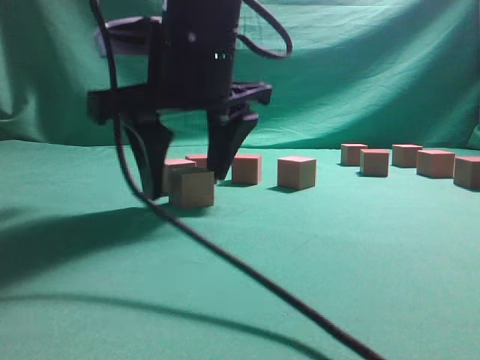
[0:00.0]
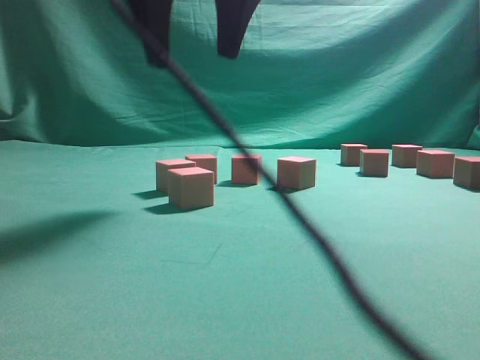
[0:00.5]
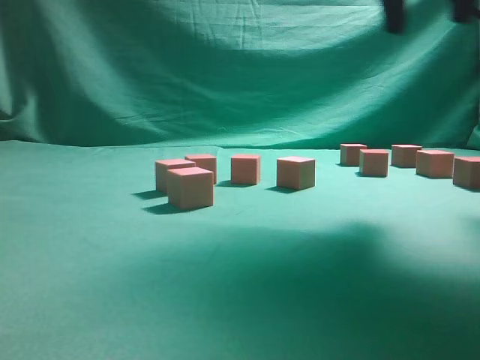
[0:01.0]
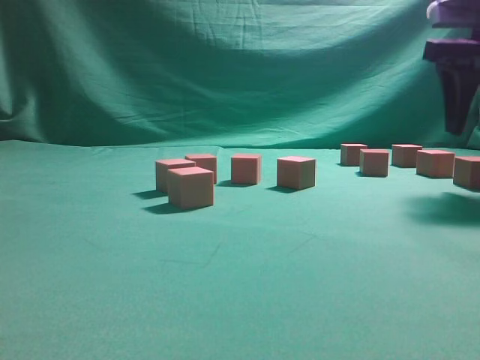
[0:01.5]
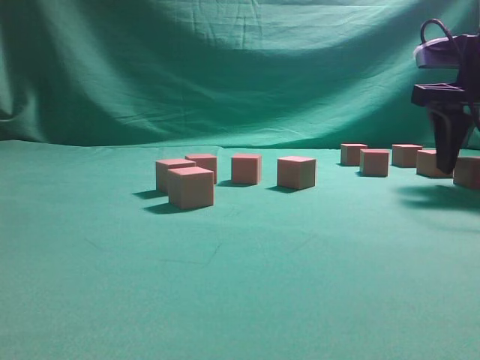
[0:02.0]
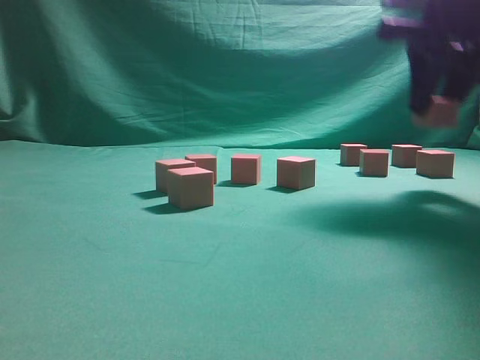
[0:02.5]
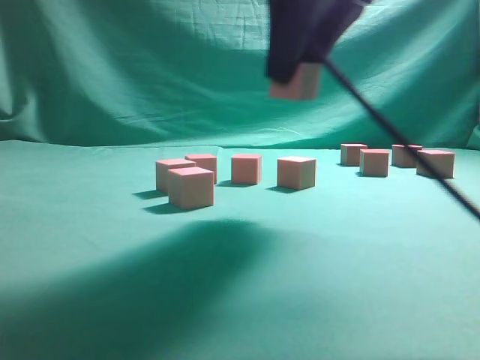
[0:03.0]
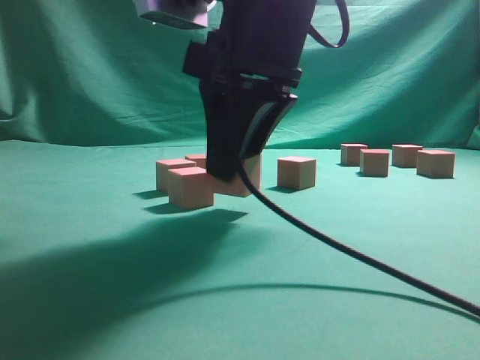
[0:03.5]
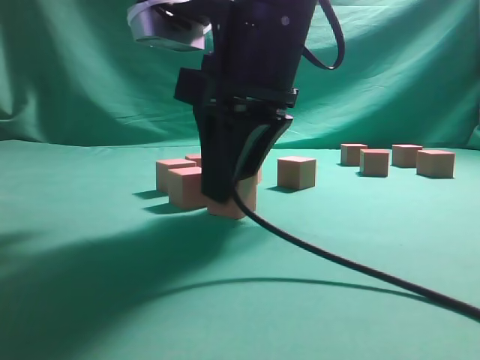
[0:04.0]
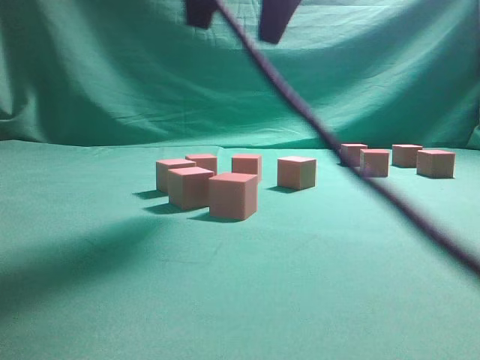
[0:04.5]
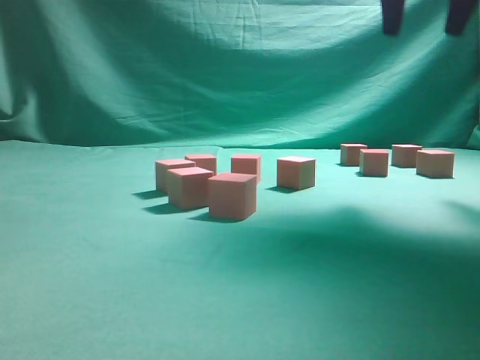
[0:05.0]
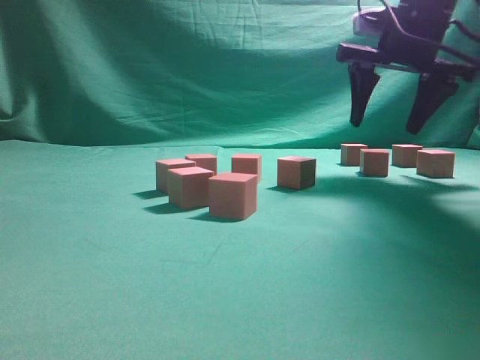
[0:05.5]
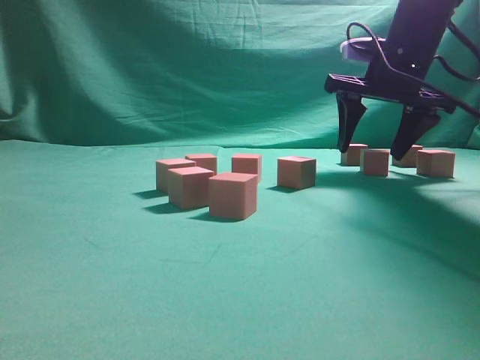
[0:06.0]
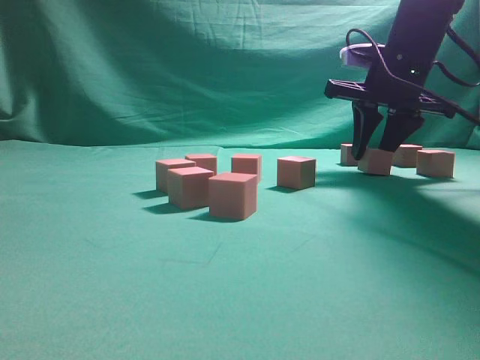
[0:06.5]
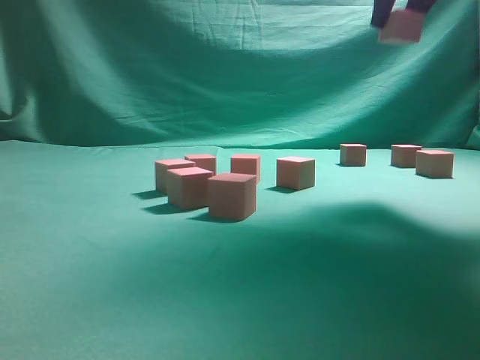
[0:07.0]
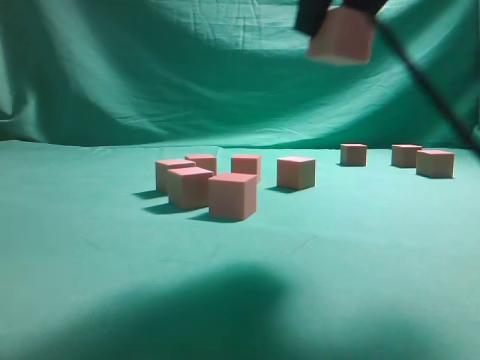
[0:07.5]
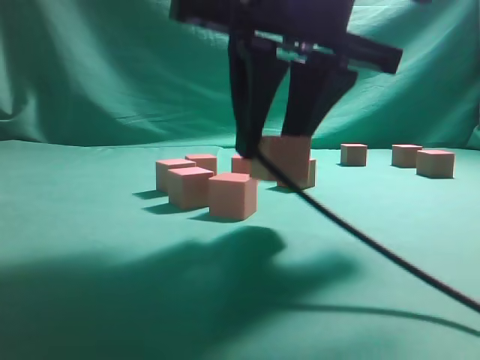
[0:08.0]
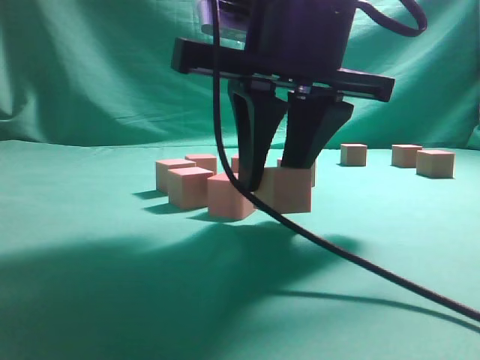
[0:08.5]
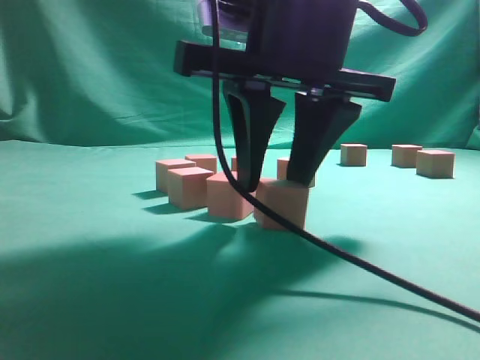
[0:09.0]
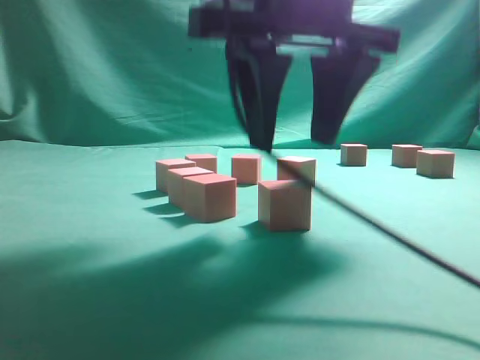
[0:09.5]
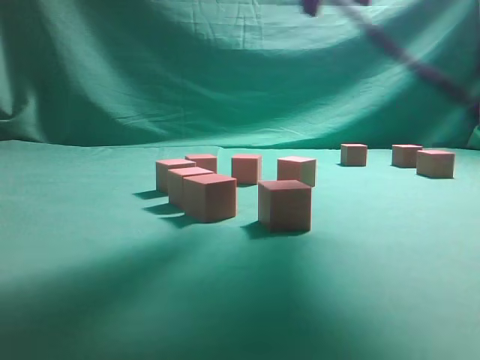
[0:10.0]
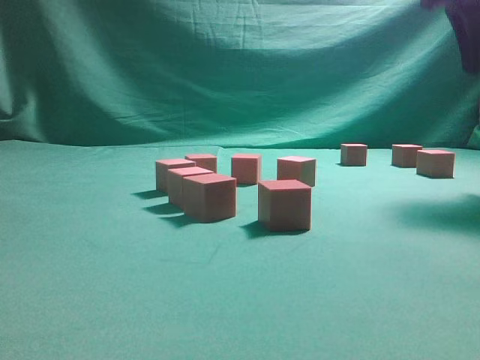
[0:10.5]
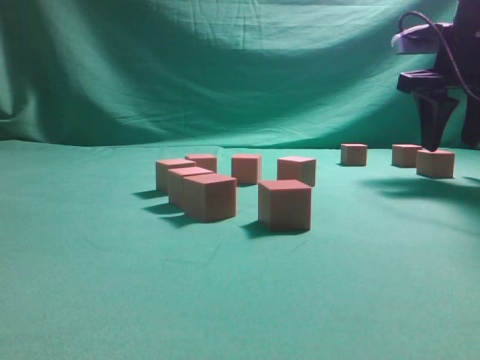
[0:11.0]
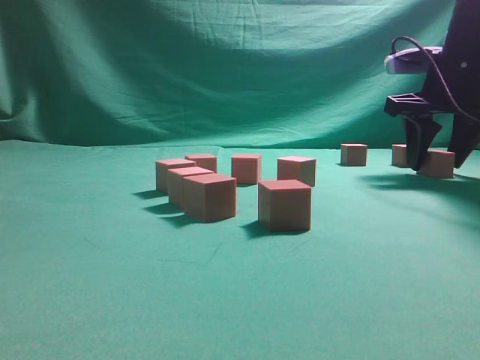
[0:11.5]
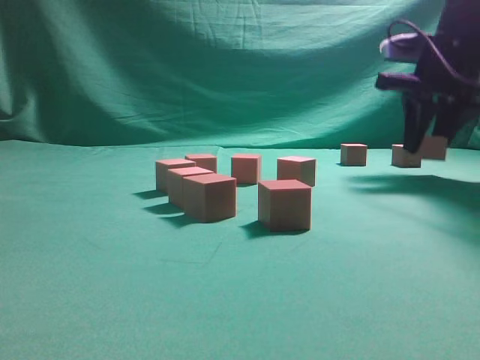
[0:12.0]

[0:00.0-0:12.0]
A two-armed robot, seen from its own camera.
Task of the whole recording: pick up the multiple cubes in two columns one by one and place them in another position on the table.
Step, 0:01.0 to 0:02.0: Pick up the block on the table.
Step, 0:03.0 to 0:04.0: Place the block at the correct position to assemble the letter S.
Step, 0:05.0 to 0:06.5: Pick up the block on the table.
Step, 0:07.0 to 0:09.5: Place the block at the correct position to assemble the letter S.
Step, 0:10.0 to 0:12.0: Pick up the block on the table.
0:00.0 to 0:02.0: The right gripper shifts approximately 30 cm to the right.
0:02.0 to 0:04.0: The right gripper heads to the left and backward, covering roughly 25 cm.
0:04.0 to 0:06.0: The right gripper goes approximately 25 cm forward and to the right, and opens up.
0:06.0 to 0:08.0: The right gripper is displaced backward and to the left by approximately 25 cm, and closes its fingers.
0:08.0 to 0:10.0: The right gripper travels upward and forward by about 15 cm.
0:10.0 to 0:12.0: The right gripper shifts roughly 25 cm forward, to the right and downward.

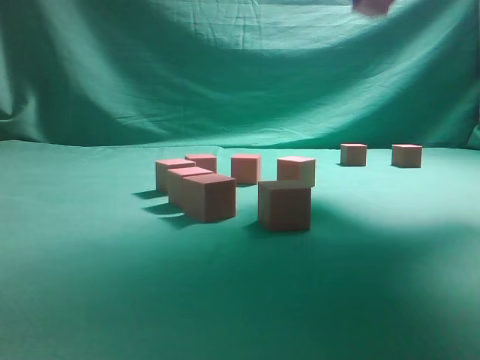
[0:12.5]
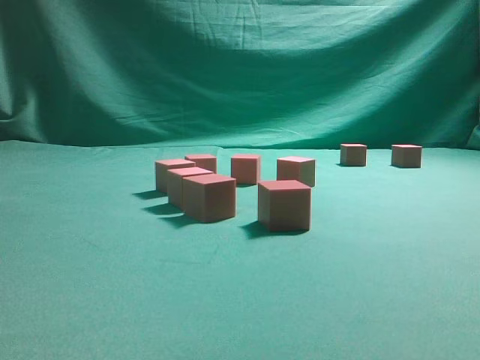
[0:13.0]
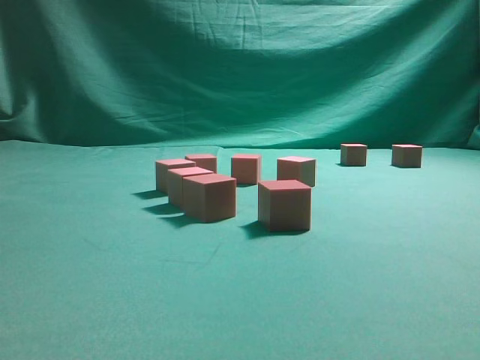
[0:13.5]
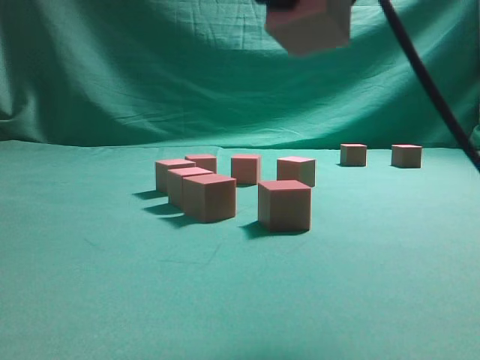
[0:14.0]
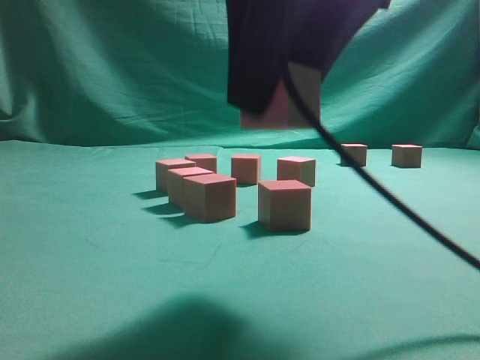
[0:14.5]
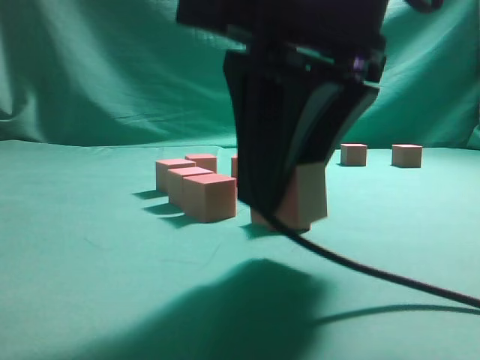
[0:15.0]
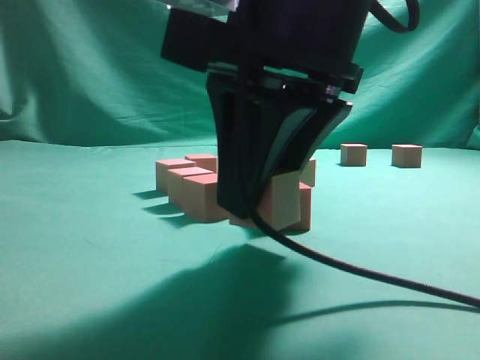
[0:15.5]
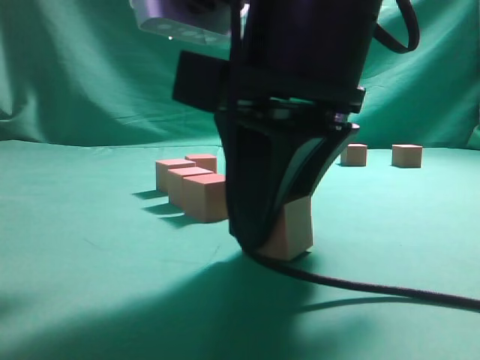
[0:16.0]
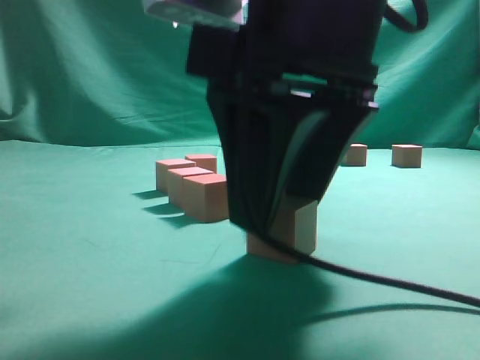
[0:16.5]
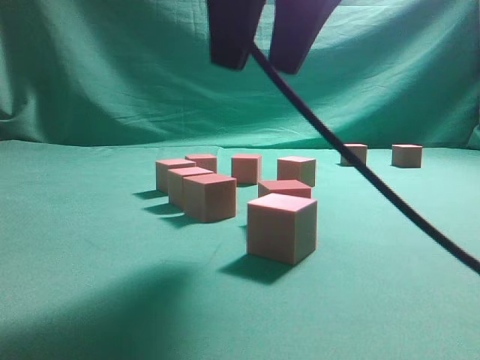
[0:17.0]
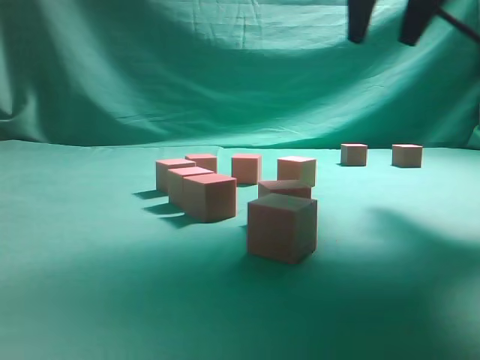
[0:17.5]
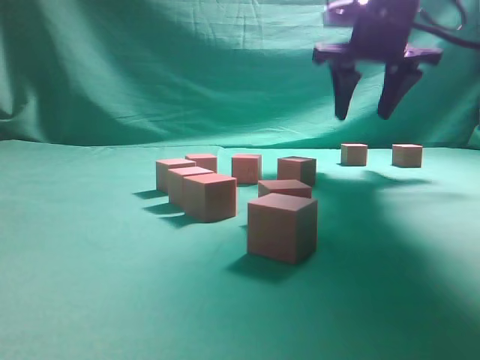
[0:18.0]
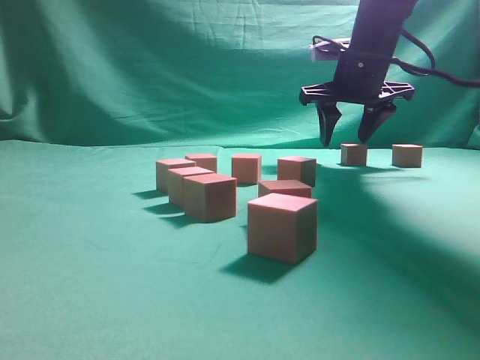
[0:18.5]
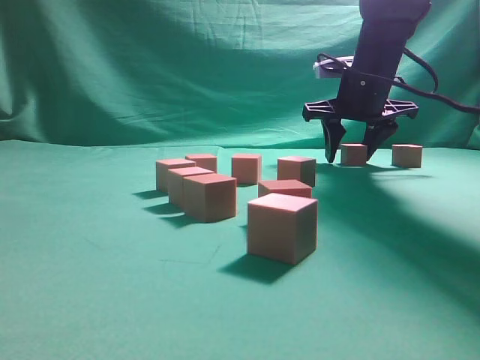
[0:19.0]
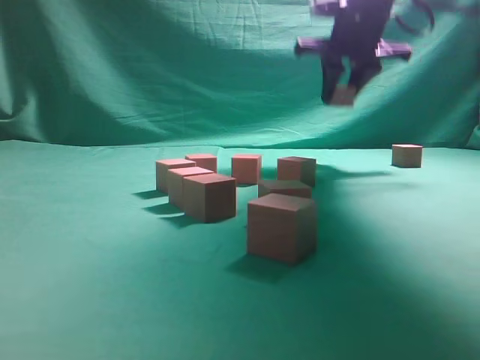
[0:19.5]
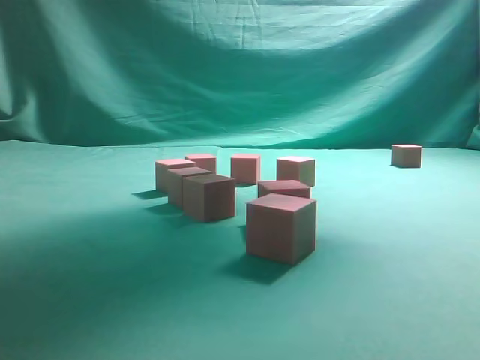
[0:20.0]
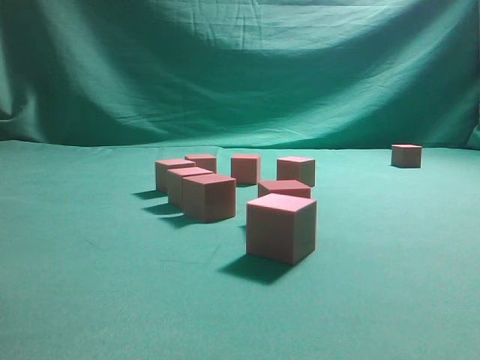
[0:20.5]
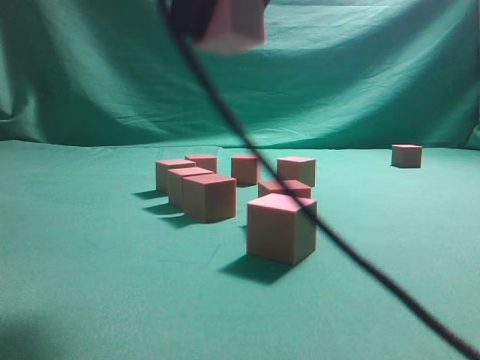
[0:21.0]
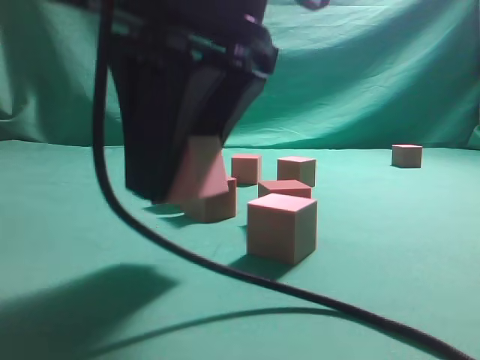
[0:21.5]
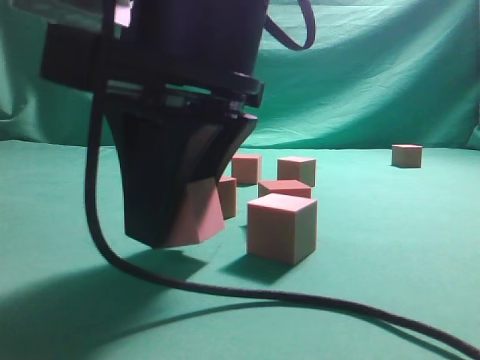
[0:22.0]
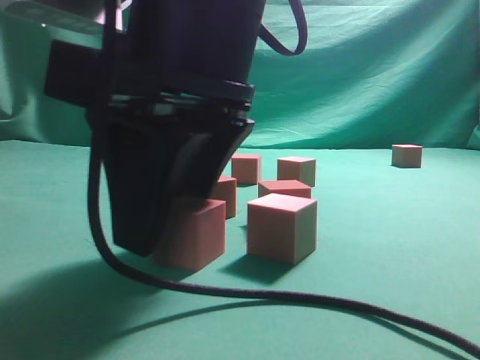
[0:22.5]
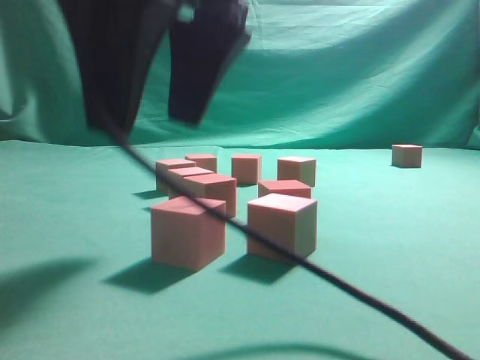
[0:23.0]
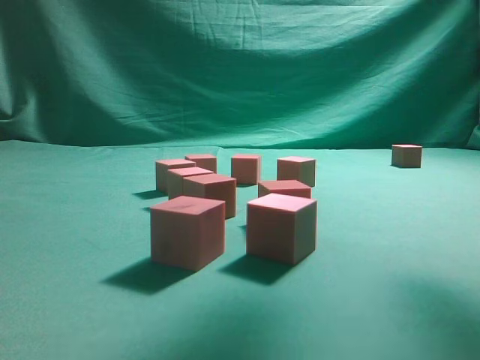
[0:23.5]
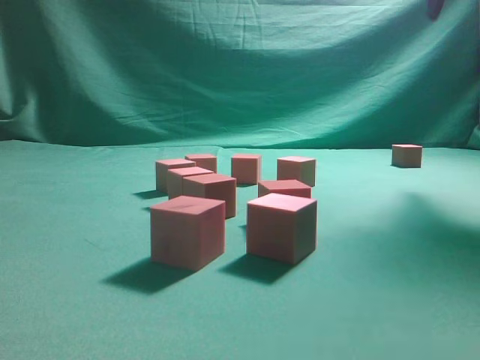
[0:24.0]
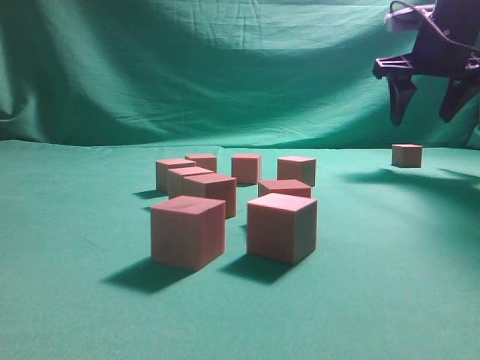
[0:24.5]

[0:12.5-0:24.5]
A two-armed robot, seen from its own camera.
Task of the whole recording: pick up the multiple cubes in two columns one by one and place them in another position on the table.
Step, 0:12.5 to 0:17.0: Place the block at the correct position to assemble the letter S.
Step, 0:17.5 to 0:19.0: Pick up the block on the table.
Step, 0:19.5 to 0:23.0: Place the block at the correct position to assemble the letter S.
0:12.5 to 0:14.5: The right gripper travels backward, to the left and downward by about 30 cm.
0:14.5 to 0:16.5: The right gripper heads downward, covering approximately 5 cm.
0:16.5 to 0:18.5: The right gripper goes about 30 cm forward.
0:18.5 to 0:20.5: The right gripper is displaced backward and upward by approximately 30 cm.
0:20.5 to 0:22.5: The right gripper travels downward, to the left and backward by about 25 cm.
0:22.5 to 0:24.5: The right gripper heads forward and to the right, covering about 35 cm.

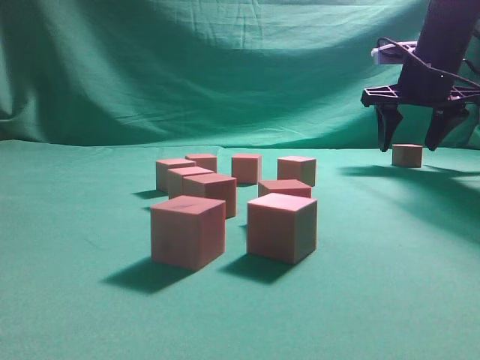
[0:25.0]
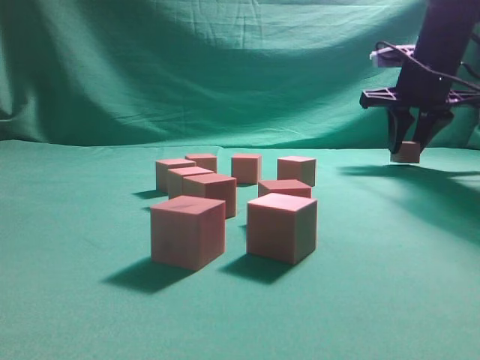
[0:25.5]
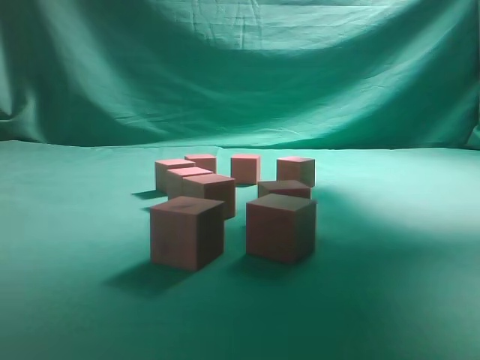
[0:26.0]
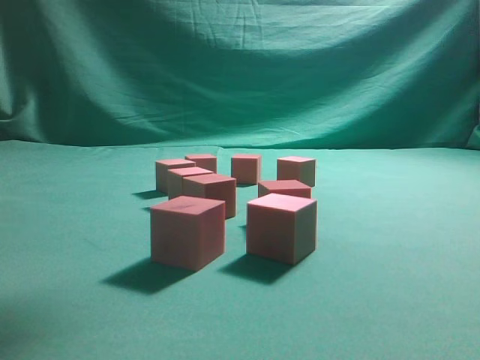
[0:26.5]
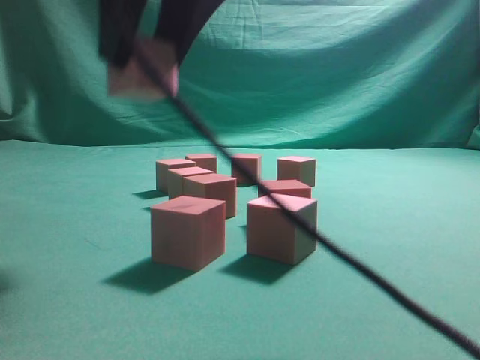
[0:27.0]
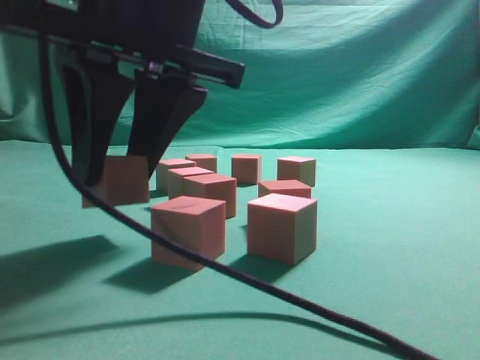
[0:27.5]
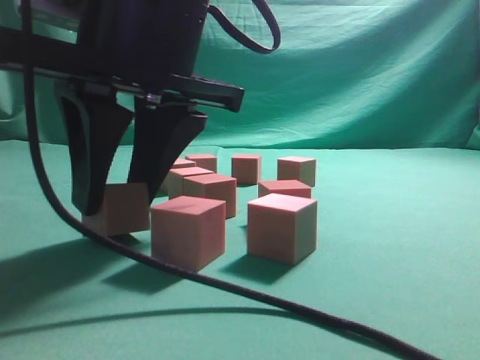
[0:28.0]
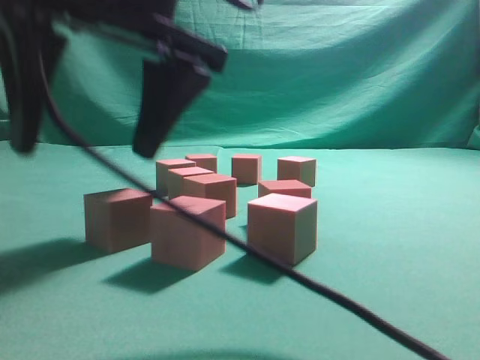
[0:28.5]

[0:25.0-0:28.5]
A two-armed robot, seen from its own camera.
Task of the whole recording: pick up the multiple cubes in two columns one by one and place them in another position on the table.
0:25.0 to 0:27.0: The right gripper shifts about 40 cm backward and to the left, and closes its fingers.
0:27.0 to 0:28.5: The right gripper opens up.
